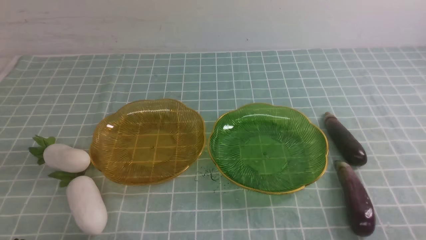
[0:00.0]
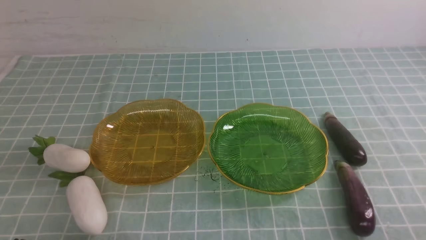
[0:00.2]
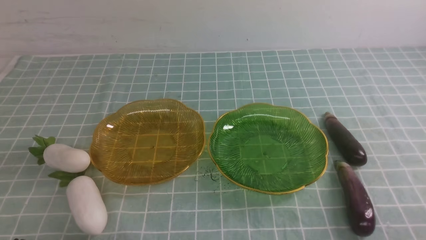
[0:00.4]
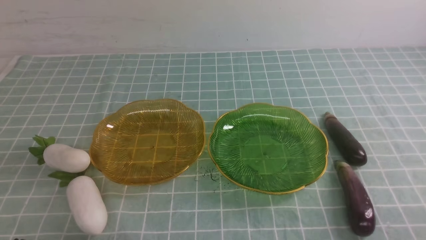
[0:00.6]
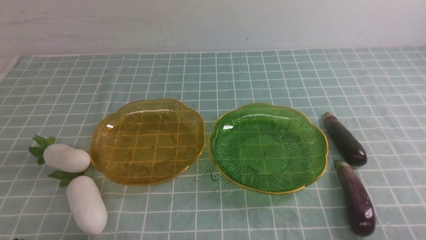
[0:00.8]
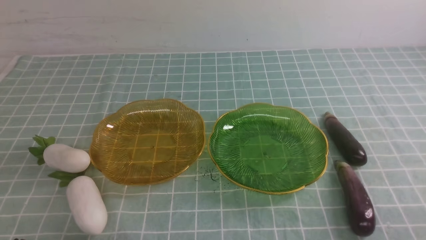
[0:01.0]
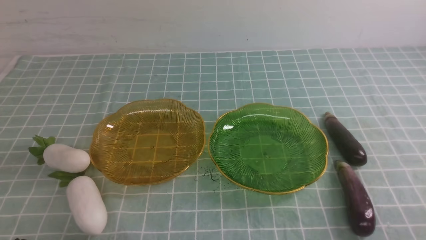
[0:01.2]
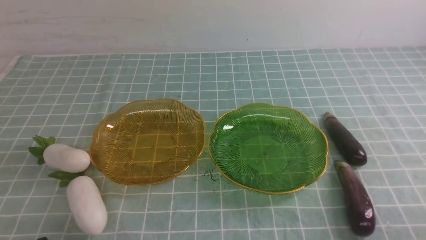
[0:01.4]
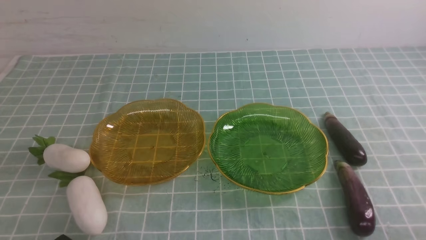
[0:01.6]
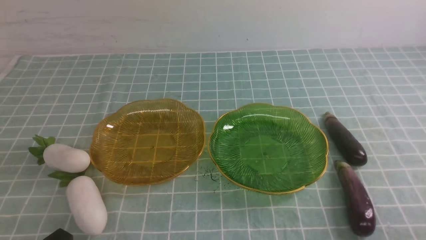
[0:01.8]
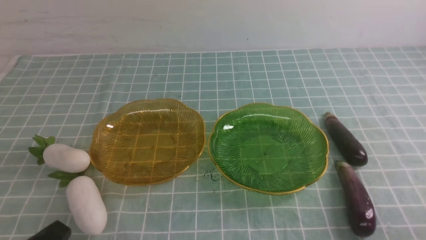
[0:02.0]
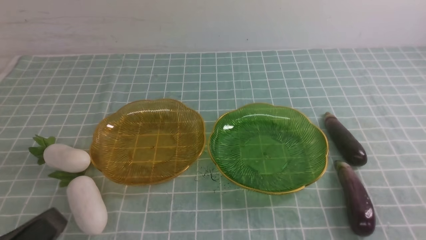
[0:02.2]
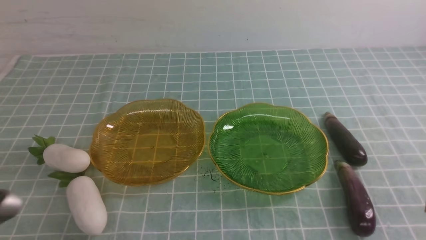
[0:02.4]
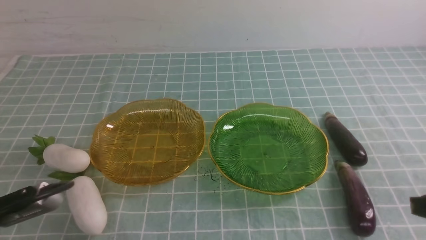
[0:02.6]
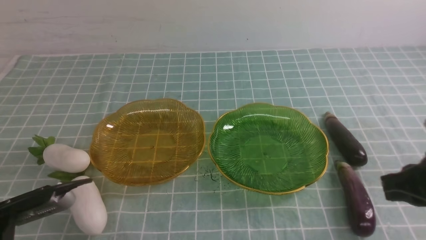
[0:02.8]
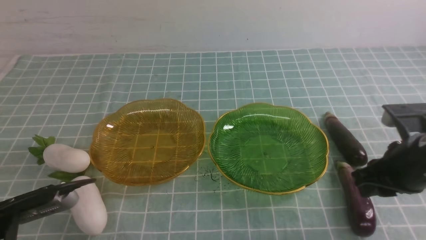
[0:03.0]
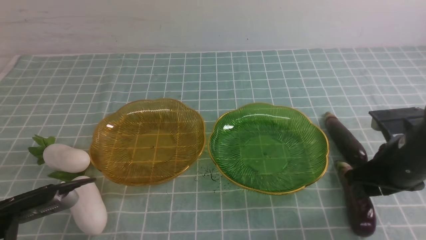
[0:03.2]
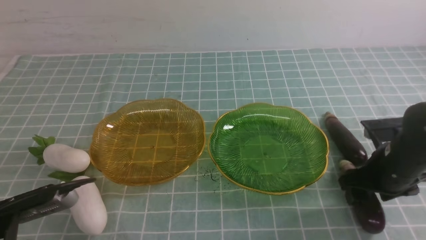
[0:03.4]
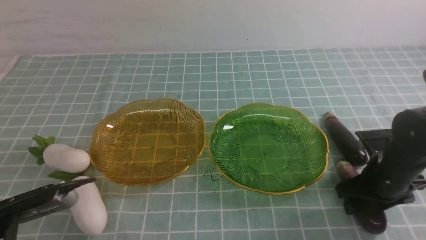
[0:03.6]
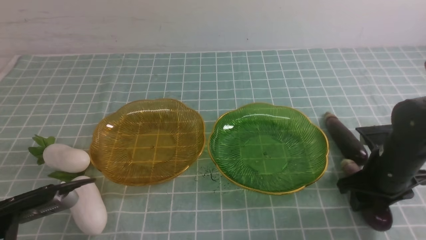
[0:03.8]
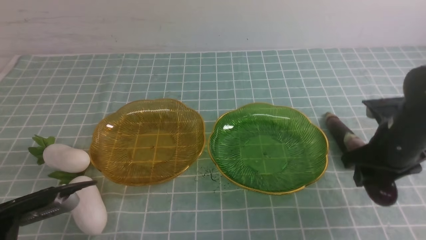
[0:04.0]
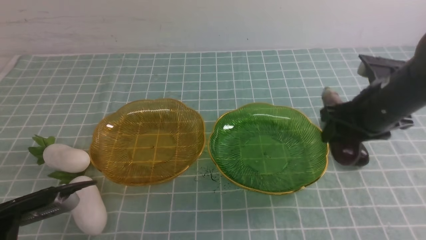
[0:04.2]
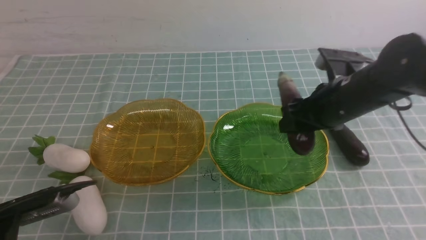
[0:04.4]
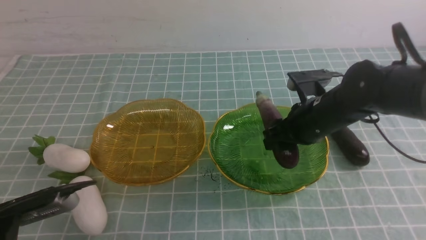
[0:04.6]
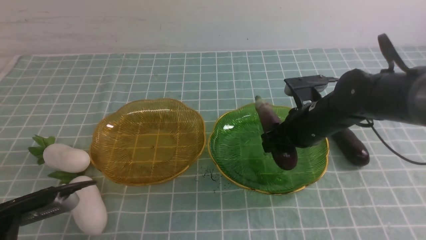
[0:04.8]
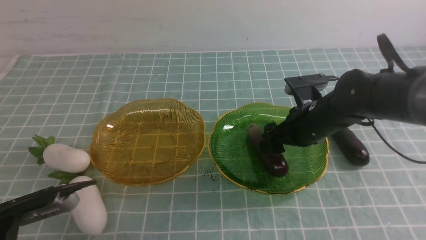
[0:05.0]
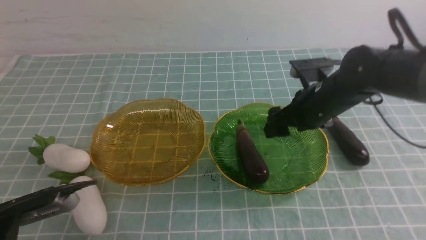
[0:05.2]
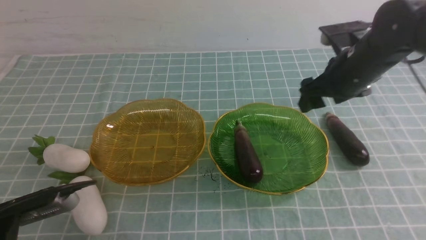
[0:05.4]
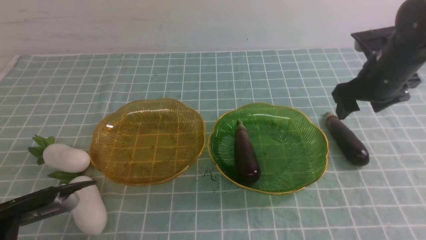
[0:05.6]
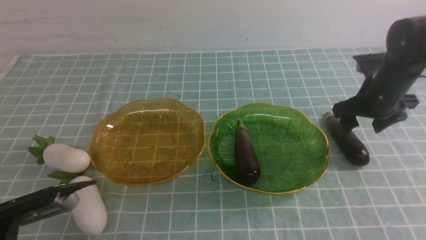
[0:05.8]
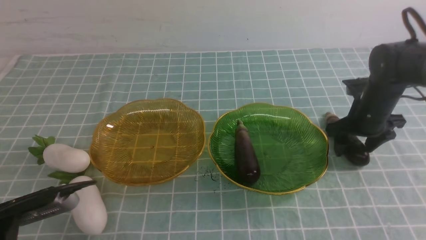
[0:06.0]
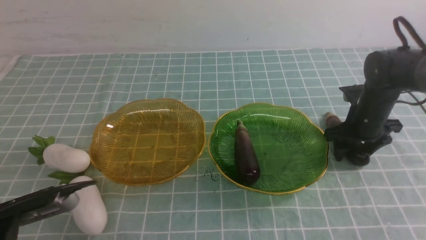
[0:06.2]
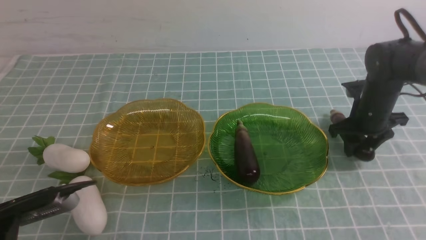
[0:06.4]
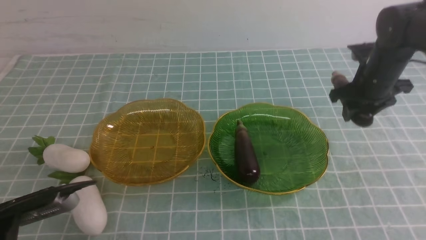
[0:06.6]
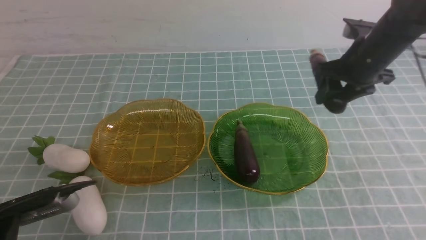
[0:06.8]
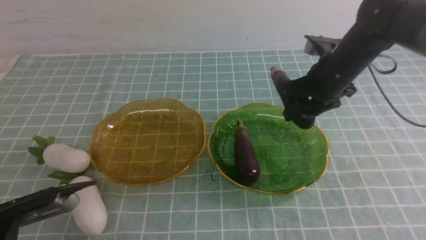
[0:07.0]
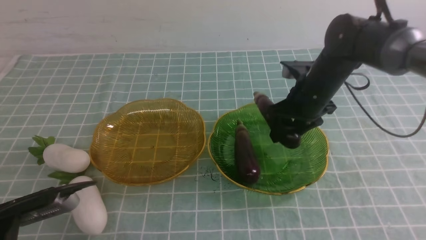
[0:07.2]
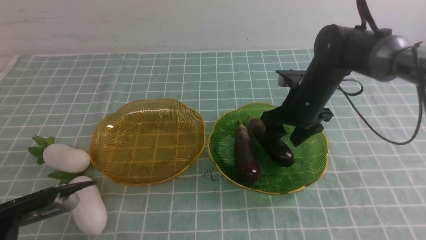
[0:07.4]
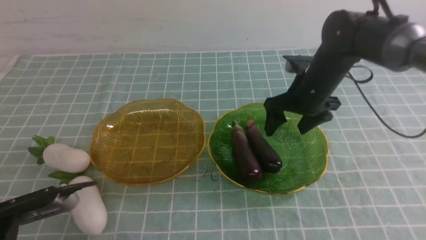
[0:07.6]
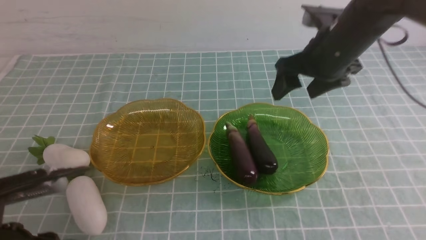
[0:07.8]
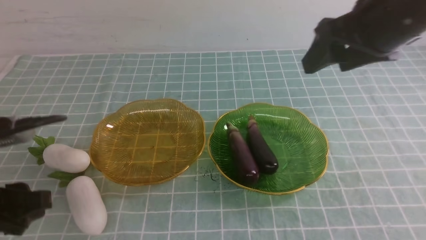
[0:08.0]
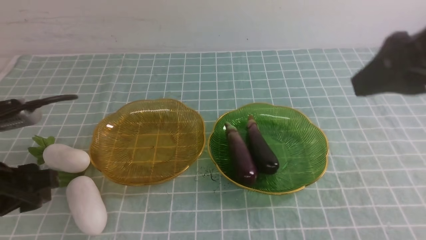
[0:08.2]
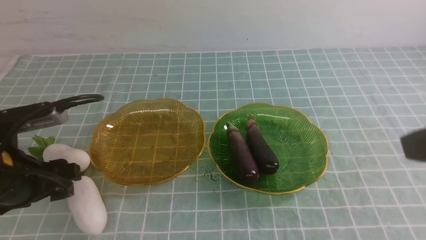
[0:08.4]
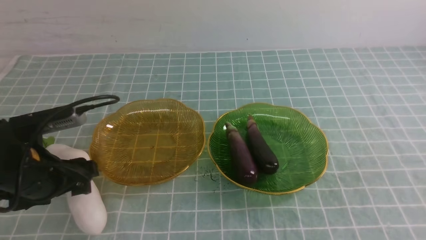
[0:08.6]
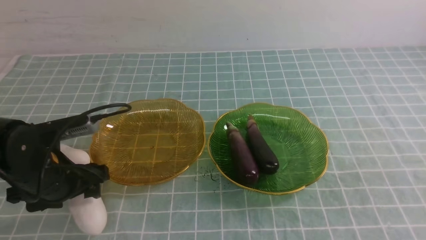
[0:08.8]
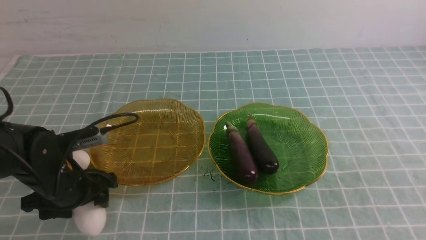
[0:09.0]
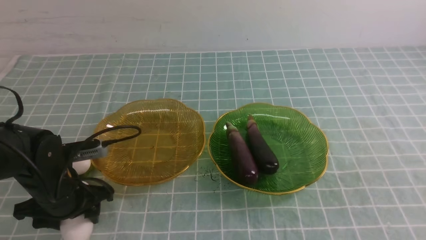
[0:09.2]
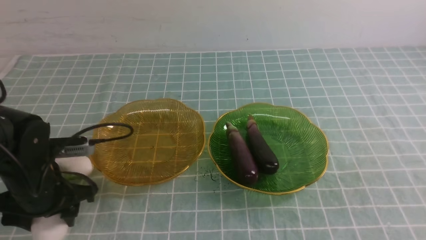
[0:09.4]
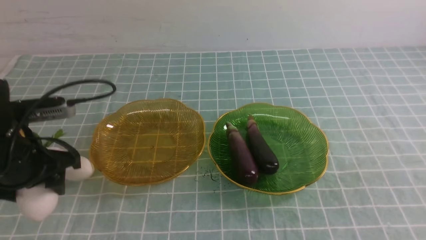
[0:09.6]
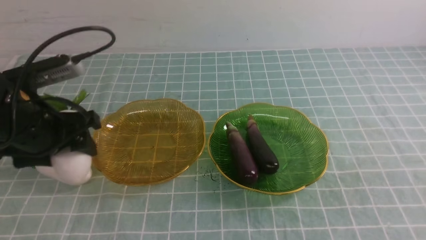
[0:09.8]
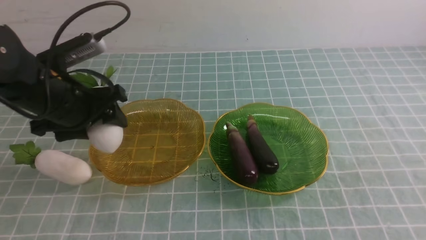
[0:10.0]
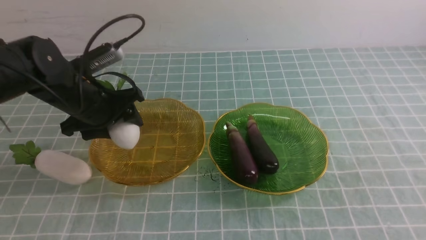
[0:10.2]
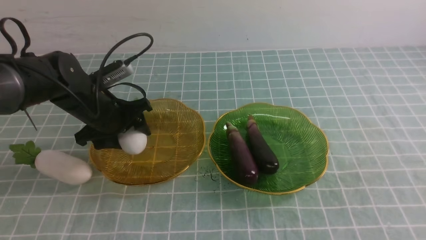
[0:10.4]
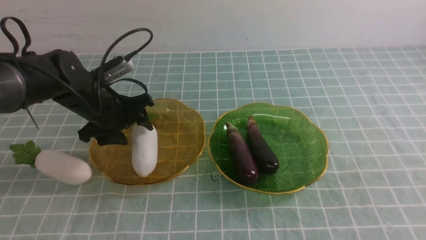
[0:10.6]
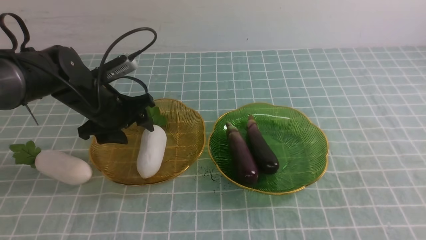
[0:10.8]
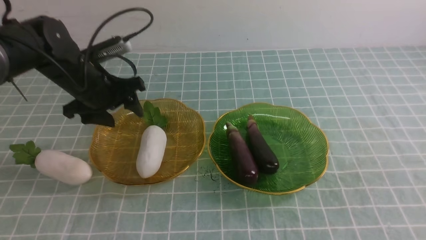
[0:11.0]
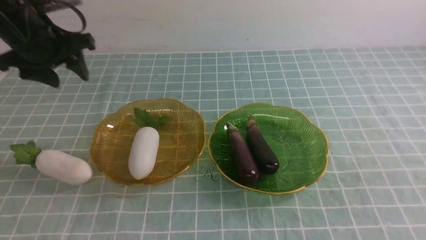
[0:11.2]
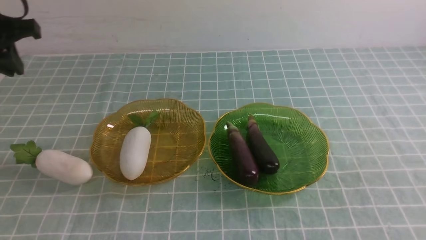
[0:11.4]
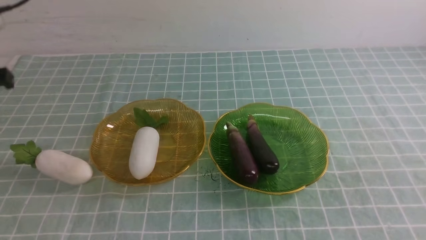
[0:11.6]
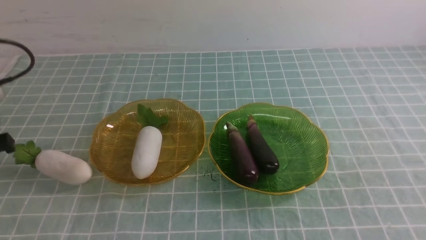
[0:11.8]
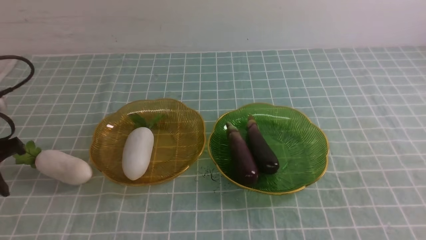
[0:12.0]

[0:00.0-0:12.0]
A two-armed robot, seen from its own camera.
Step, 0:00.0 to 0:05.0: use the right arm to grab an eggplant and put it into the right plate.
Step, 0:05.2 to 0:07.4: use the right arm to grab an eggplant and put it into the right plate.
0:01.6 to 0:03.0: The right gripper moves forward, approximately 20 cm, and opens; the left gripper shifts some 5 cm forward.
0:03.0 to 0:04.4: The right gripper heads forward and to the left, covering about 15 cm.
0:04.4 to 0:06.0: The right gripper goes some 15 cm to the right, forward and downward.
0:06.0 to 0:07.6: The right gripper heads to the left and upward, covering approximately 15 cm.
0:07.6 to 0:09.0: The left gripper shifts roughly 15 cm forward, and opens its fingers. Meanwhile the right gripper heads backward, covering roughly 30 cm, and closes up.
0:09.0 to 0:10.4: The left gripper travels forward by approximately 10 cm.
0:10.4 to 0:12.0: The left gripper goes about 20 cm to the left and backward, moves roughly 15 cm upward and comes back, and closes its fingers.

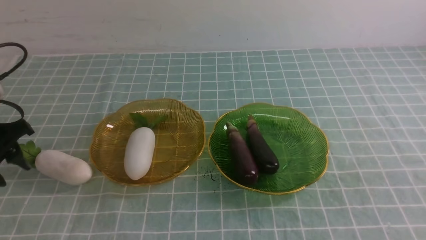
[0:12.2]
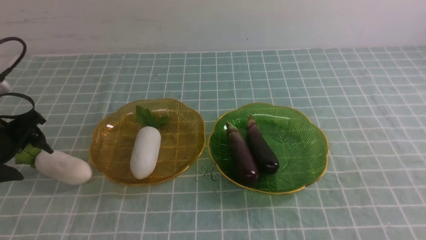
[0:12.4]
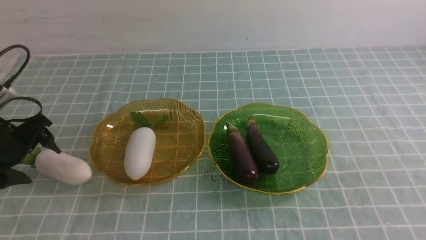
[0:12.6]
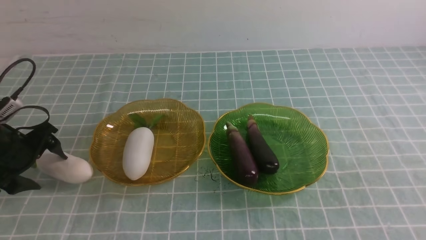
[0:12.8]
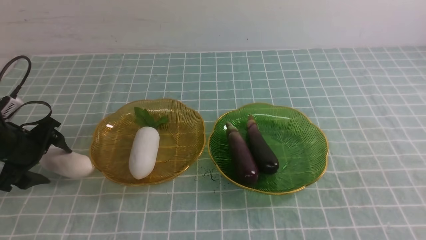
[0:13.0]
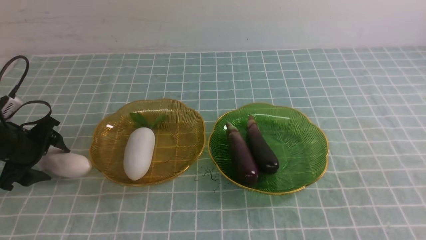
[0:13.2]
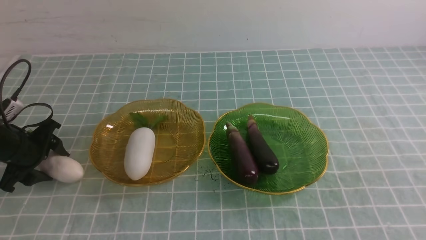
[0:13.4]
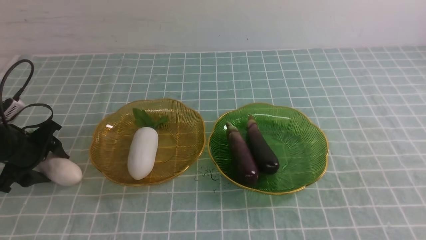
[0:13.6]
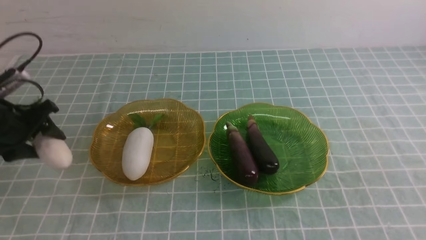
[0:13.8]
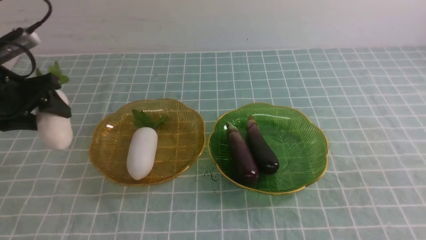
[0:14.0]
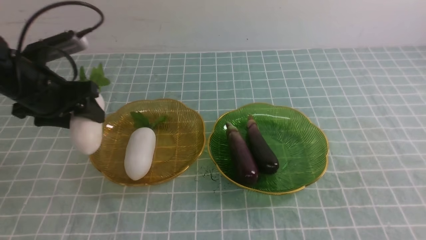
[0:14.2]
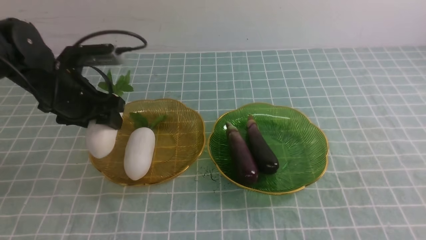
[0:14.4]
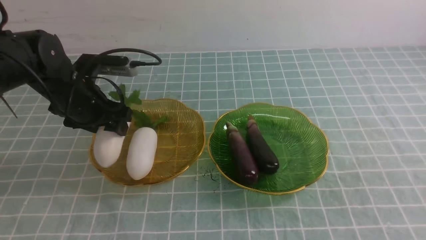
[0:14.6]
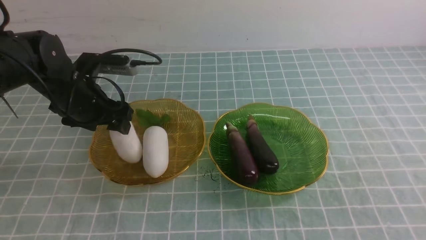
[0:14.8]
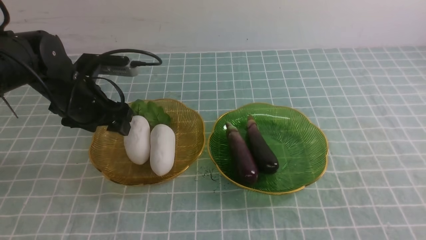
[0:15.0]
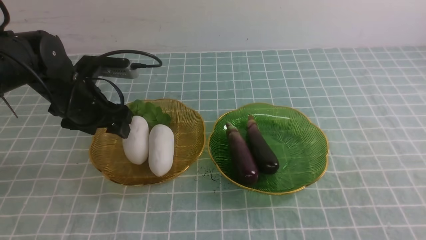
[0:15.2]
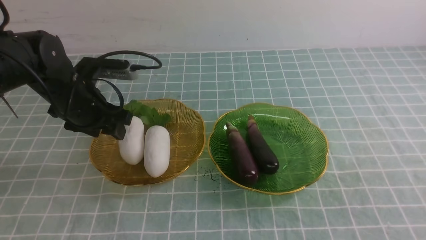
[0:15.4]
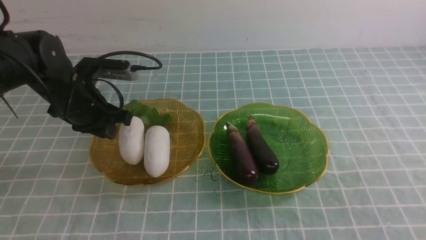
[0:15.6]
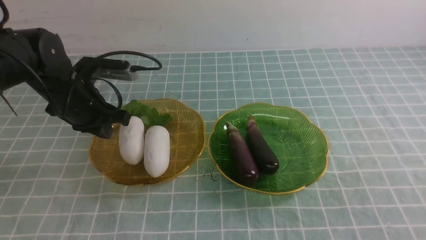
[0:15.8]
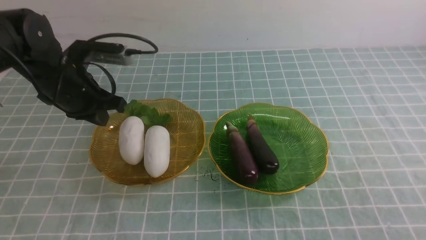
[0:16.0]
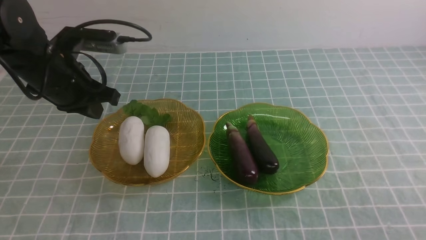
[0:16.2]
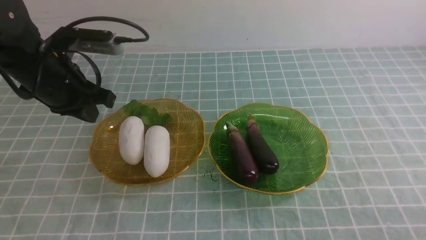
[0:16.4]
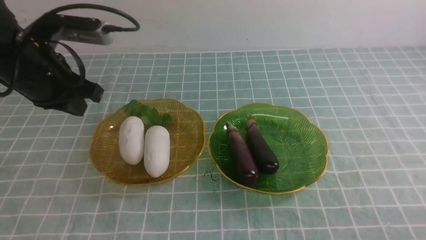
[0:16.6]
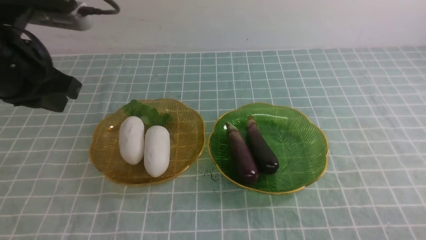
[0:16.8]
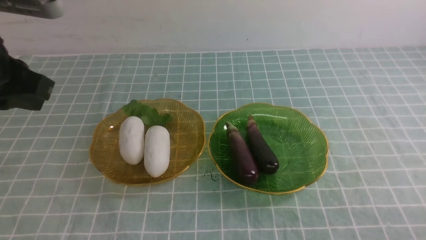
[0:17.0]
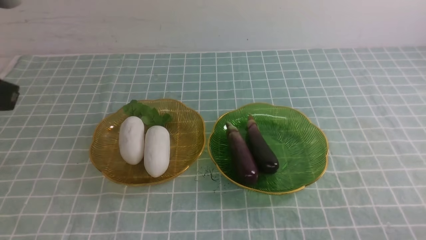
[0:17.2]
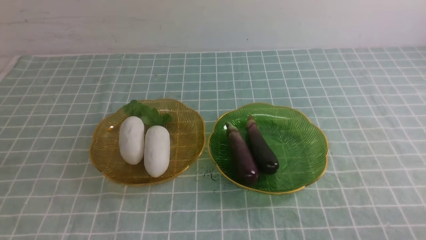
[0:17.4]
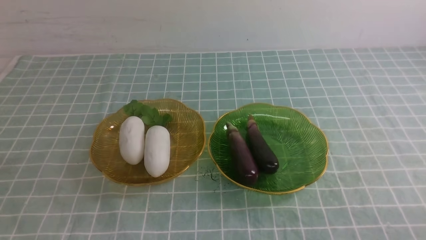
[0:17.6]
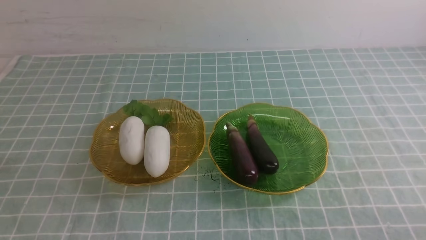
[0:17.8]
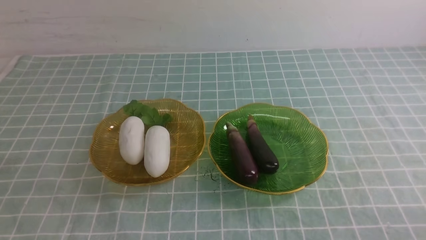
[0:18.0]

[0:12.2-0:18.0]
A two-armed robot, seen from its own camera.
Step, 0:12.2 to 0:14.6: use the left arm to grab a radish and put it into the left plate.
0:12.2 to 0:13.6: The left gripper travels forward and downward by some 10 cm.
0:13.6 to 0:15.0: The right gripper shifts some 5 cm backward, and closes; the left gripper shifts some 15 cm to the right and upward.
0:15.0 to 0:16.6: The right gripper moves downward, about 20 cm. Meanwhile the left gripper is displaced upward and backward by approximately 15 cm, and closes.
0:16.6 to 0:18.0: The left gripper is displaced backward by approximately 25 cm.
